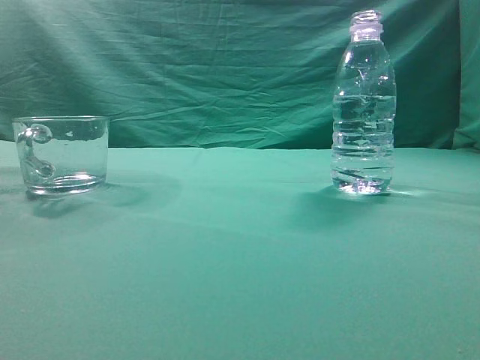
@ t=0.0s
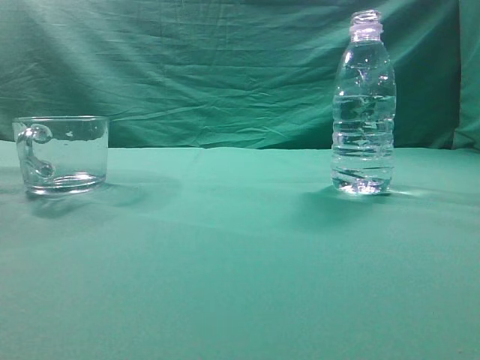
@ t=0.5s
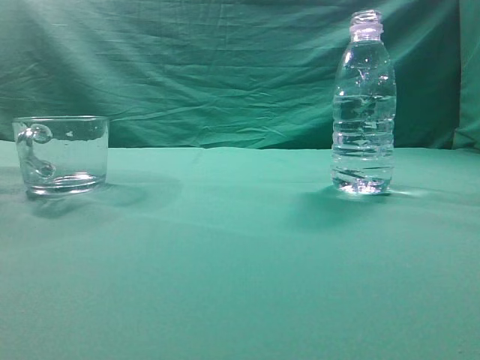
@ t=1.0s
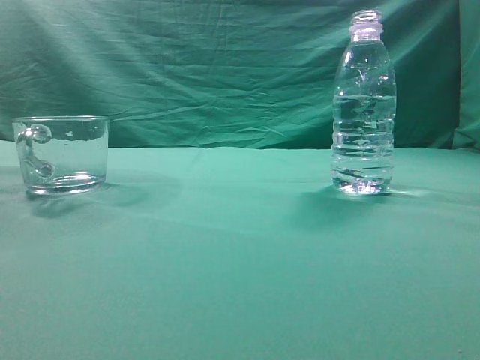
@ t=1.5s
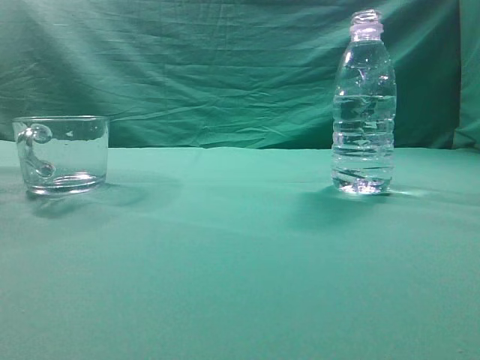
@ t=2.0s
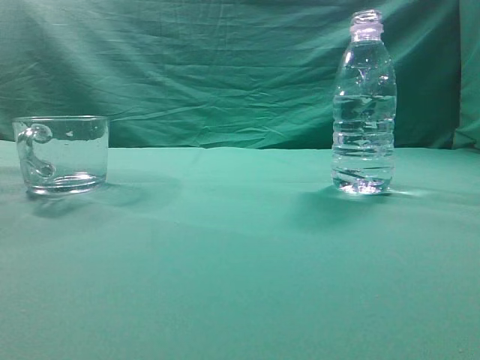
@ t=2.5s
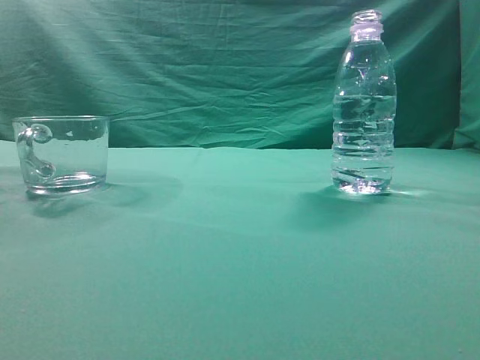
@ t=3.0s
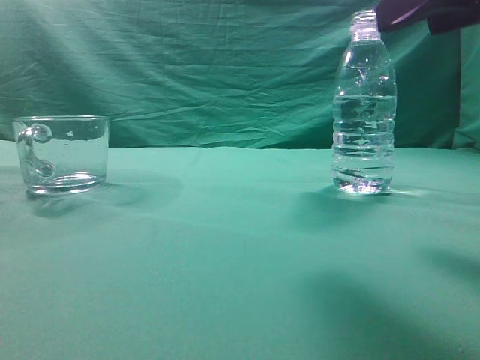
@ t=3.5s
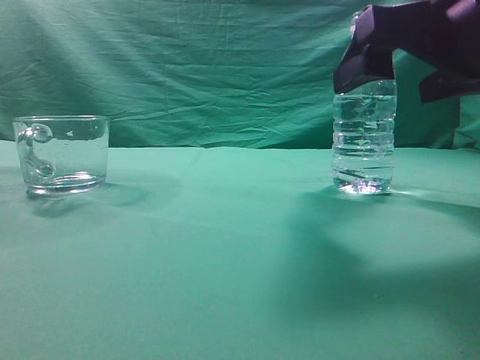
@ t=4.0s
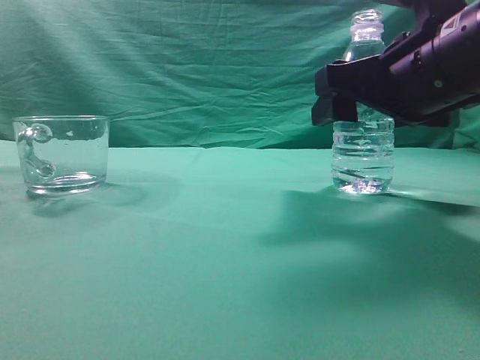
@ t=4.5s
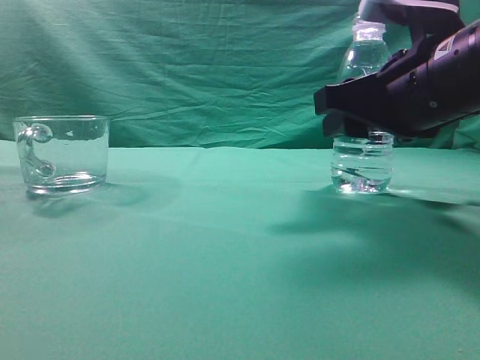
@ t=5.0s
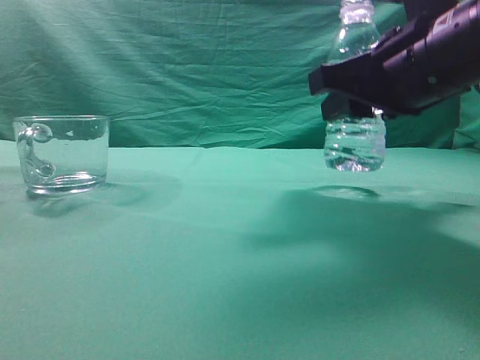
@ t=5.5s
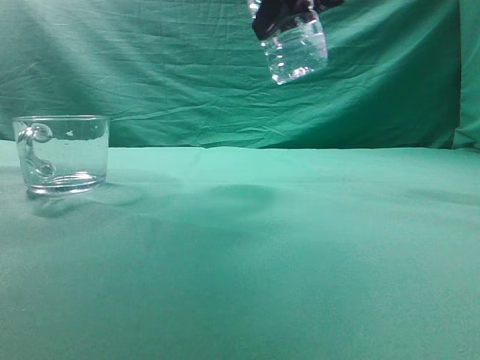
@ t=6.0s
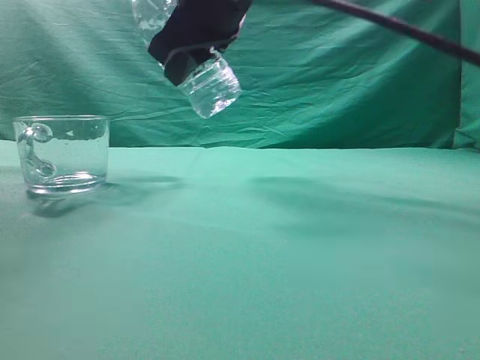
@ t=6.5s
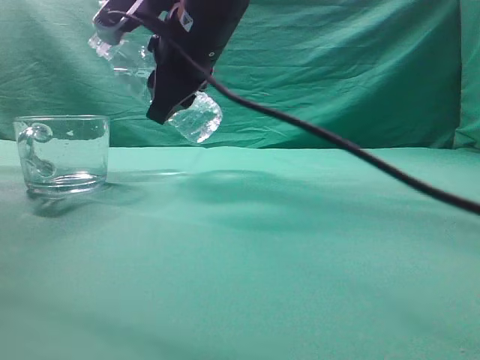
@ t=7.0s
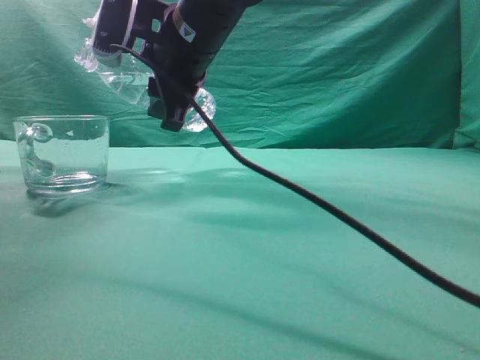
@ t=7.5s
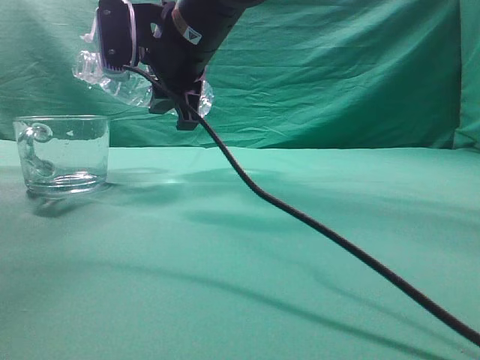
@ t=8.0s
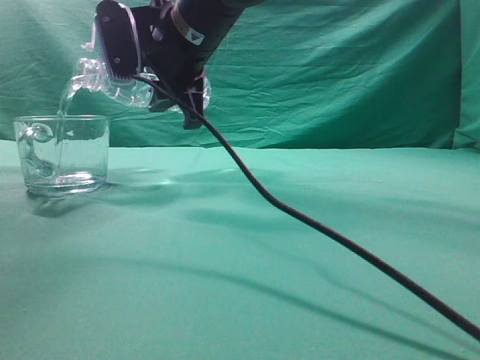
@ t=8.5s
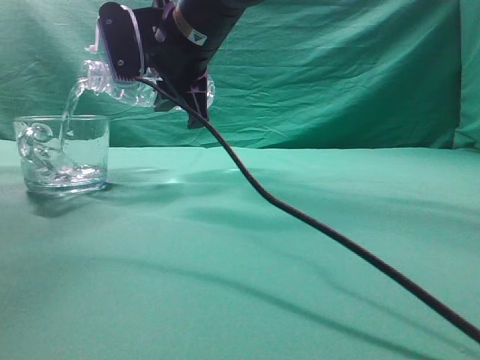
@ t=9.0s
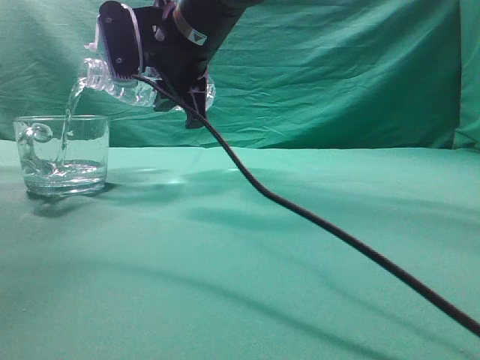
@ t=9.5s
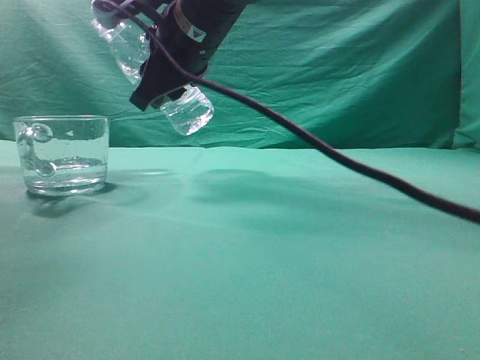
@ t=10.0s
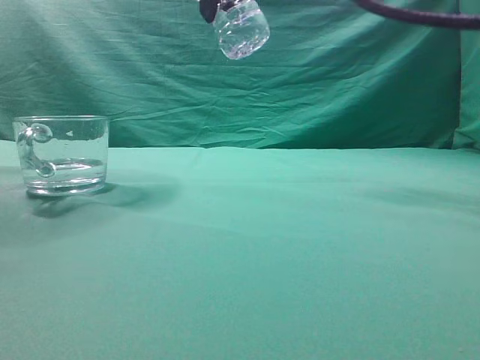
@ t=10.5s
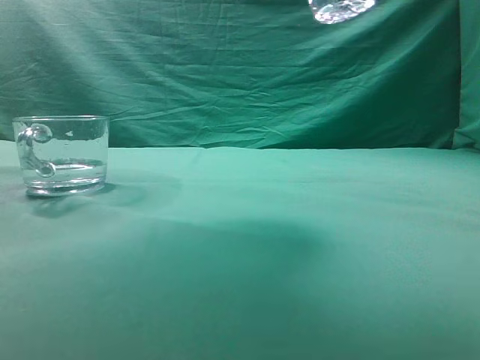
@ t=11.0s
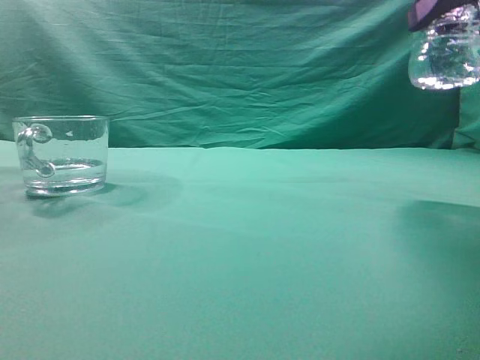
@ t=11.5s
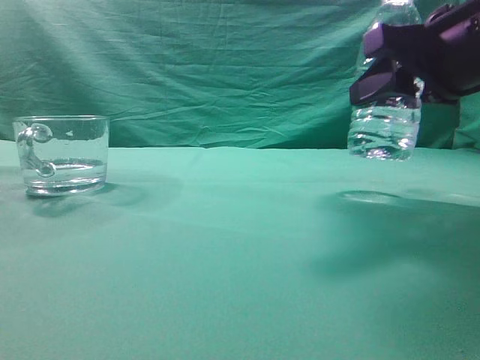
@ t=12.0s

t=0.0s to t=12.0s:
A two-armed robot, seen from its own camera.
Task of the whole recording: pick up the water bottle and pour the water in it into the glass.
Step, t=0.0s to t=5.5s: Grasp the mineral water bottle.
Step, t=6.0s to t=9.5s: Pour water into the teacup.
t=2.0s to t=4.0s: The right gripper is displaced forward, to the left and downward by some 25 cm, and opens.
t=4.0s to t=6.0s: The right gripper goes roughly 15 cm upward, to the left and forward, and closes its fingers.
t=6.0s to t=8.0s: The right gripper moves to the left, forward and downward, roughly 15 cm.
t=10.0s to t=12.0s: The right gripper heads to the right and backward, covering some 25 cm.

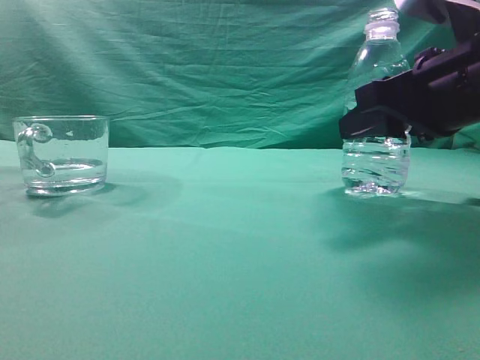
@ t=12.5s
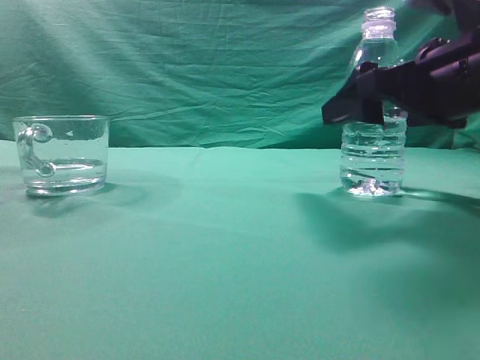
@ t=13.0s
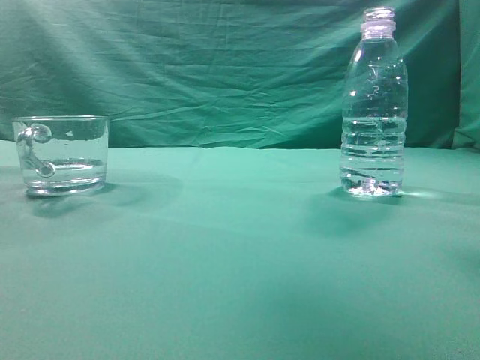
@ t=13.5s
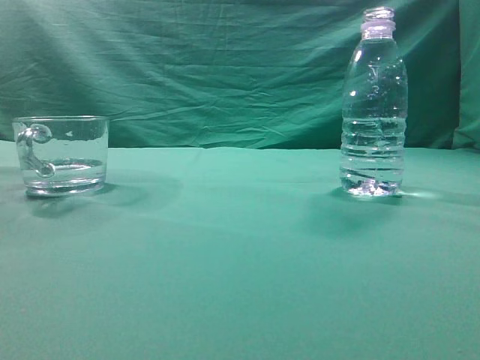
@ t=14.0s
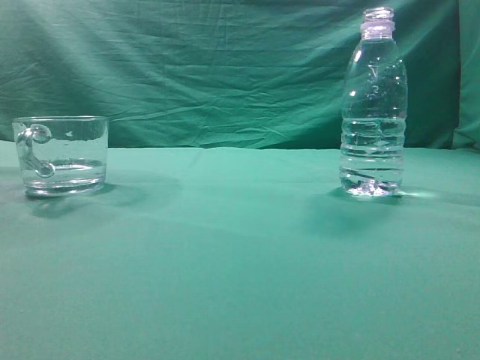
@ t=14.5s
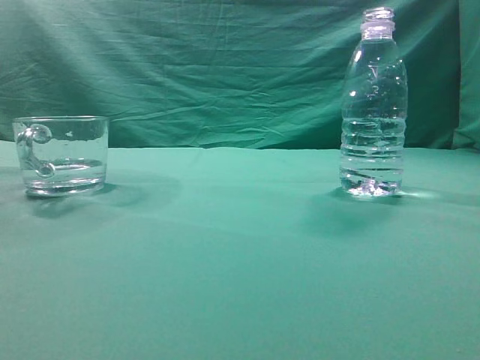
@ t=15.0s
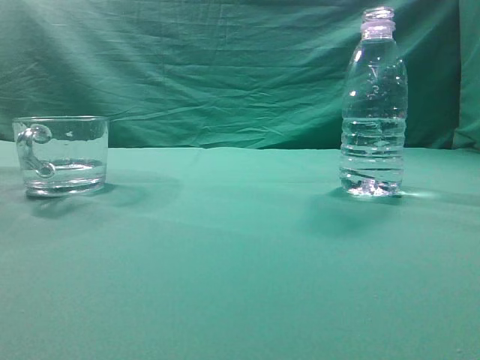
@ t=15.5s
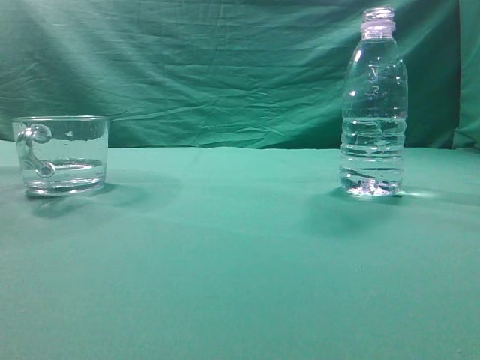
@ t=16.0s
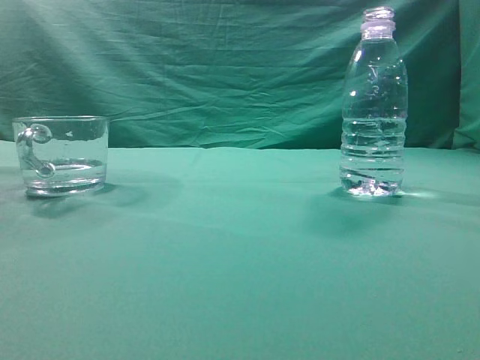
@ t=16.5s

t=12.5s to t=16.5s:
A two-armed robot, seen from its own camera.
Task of the whole recording: pick up the water bottle and pour the water in it into the glass.
t=12.5s to t=14.5s: The right gripper travels backward, upward and to the right by roughly 35 cm, and closes.
